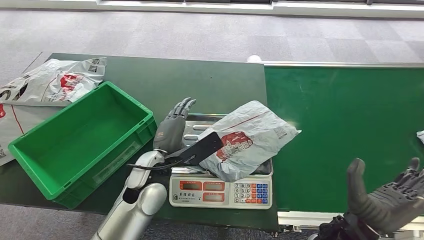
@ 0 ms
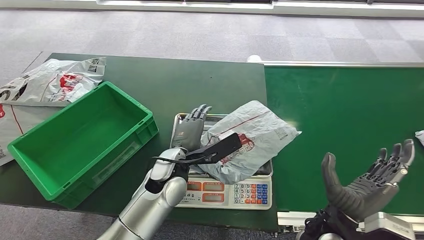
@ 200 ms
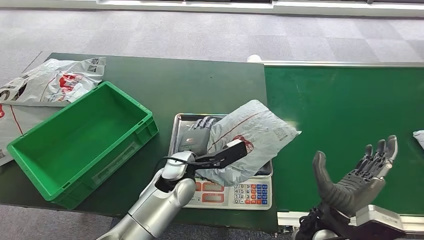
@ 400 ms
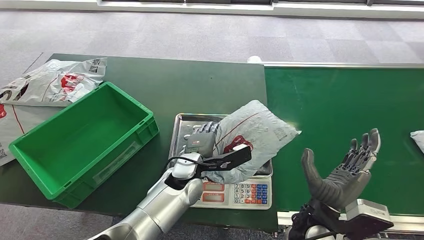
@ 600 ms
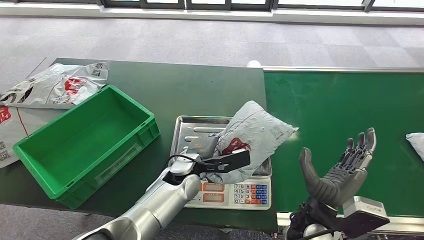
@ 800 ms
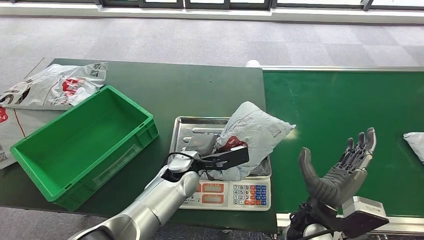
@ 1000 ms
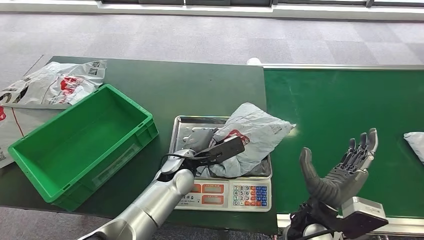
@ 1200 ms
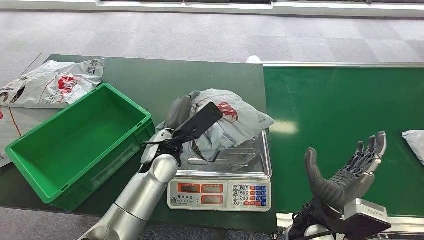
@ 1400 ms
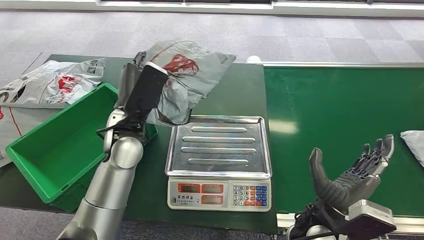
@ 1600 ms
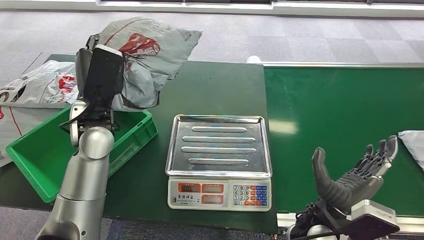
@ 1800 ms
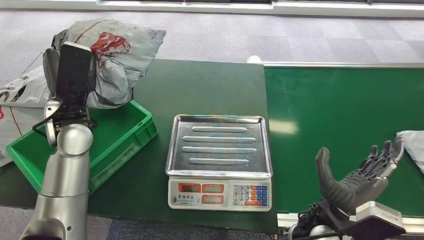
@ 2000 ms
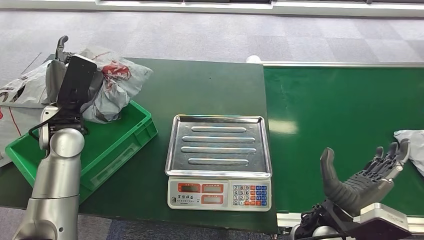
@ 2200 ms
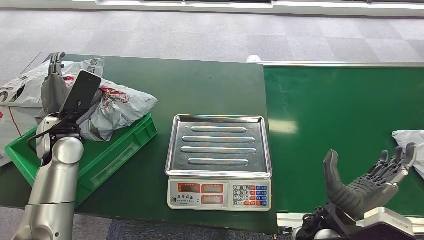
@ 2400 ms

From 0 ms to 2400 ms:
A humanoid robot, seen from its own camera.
Step, from 0 ms to 1800 ms: Pick up the package from the inbound machine.
Step, from 2000 ms to 2400 ms: Place the package into the parcel locker.

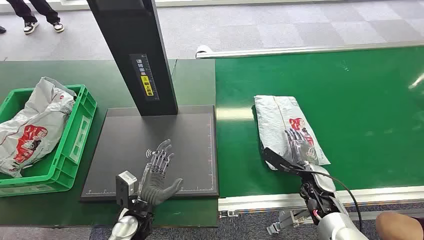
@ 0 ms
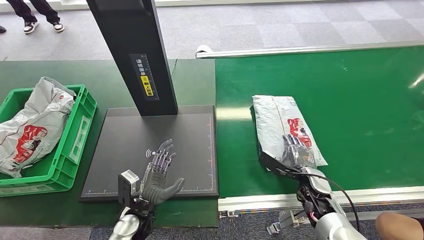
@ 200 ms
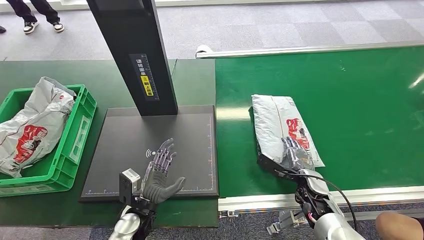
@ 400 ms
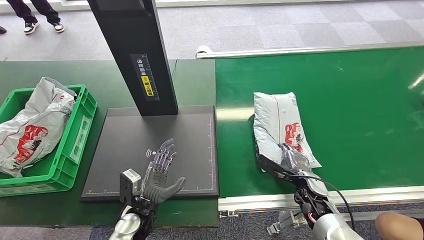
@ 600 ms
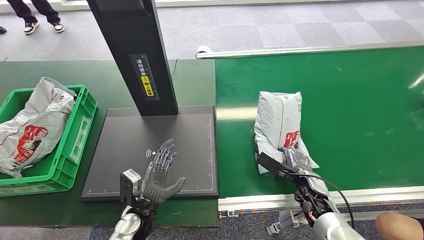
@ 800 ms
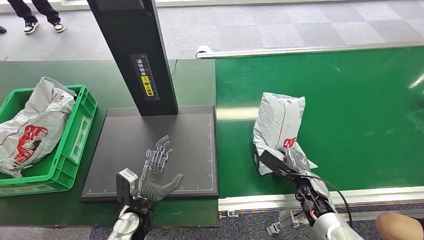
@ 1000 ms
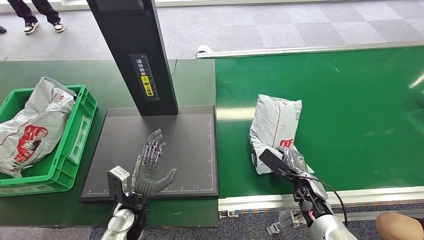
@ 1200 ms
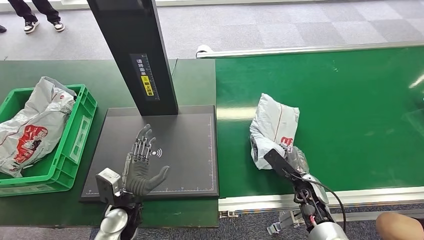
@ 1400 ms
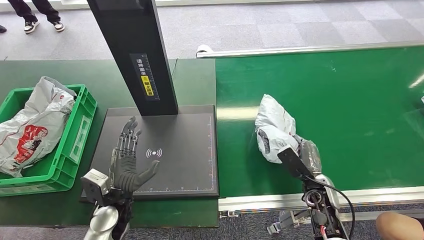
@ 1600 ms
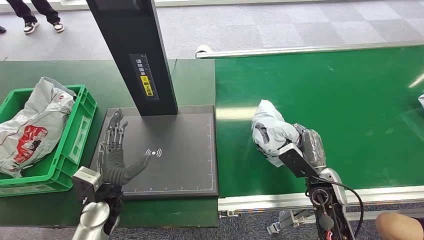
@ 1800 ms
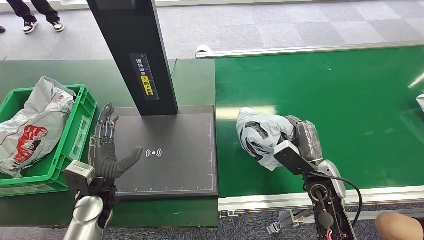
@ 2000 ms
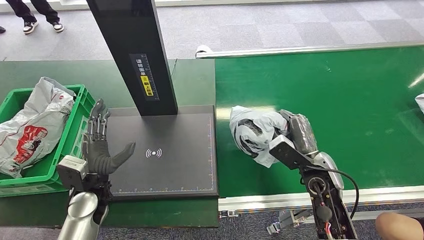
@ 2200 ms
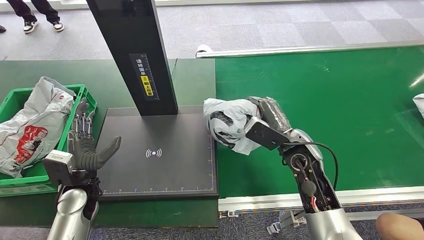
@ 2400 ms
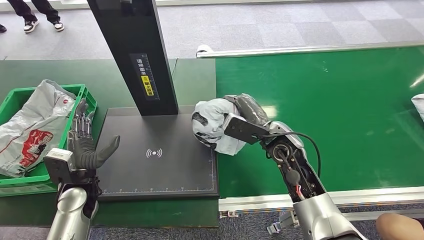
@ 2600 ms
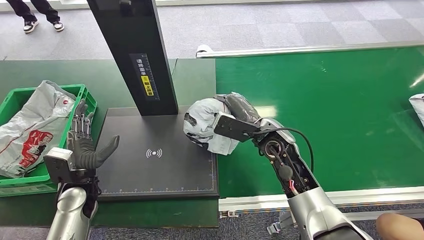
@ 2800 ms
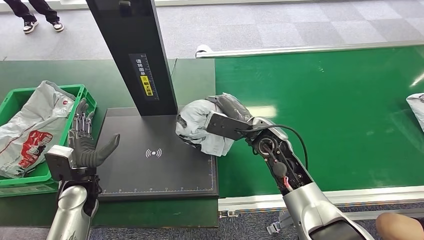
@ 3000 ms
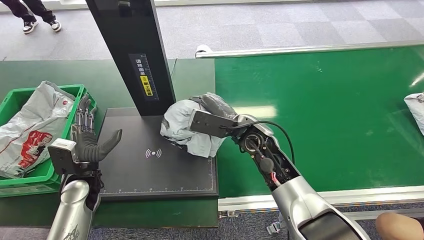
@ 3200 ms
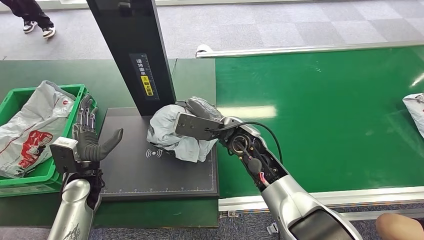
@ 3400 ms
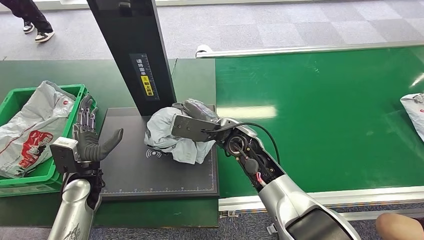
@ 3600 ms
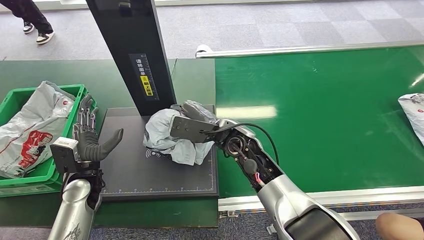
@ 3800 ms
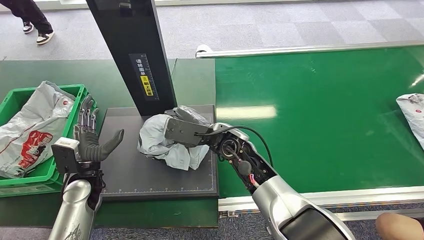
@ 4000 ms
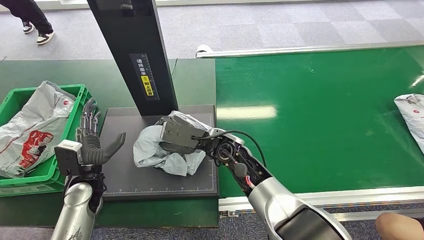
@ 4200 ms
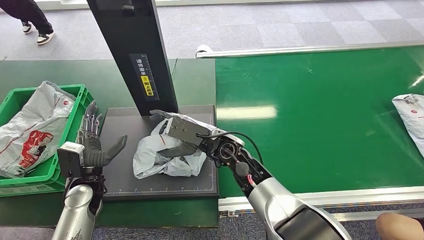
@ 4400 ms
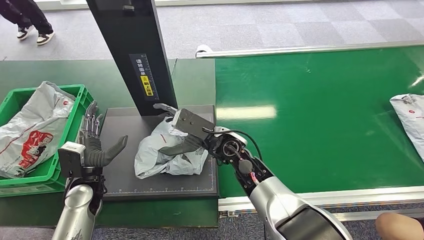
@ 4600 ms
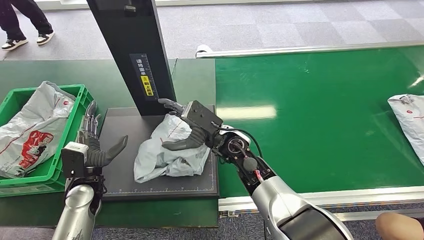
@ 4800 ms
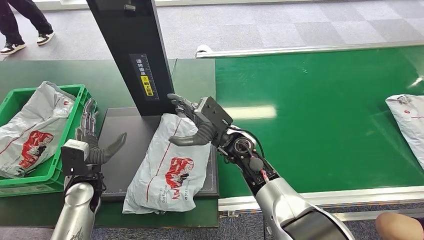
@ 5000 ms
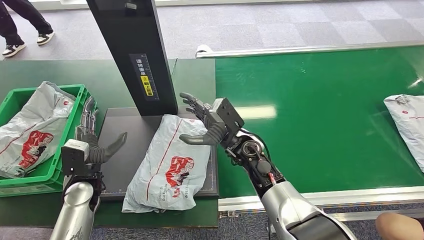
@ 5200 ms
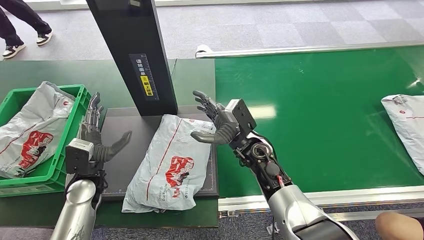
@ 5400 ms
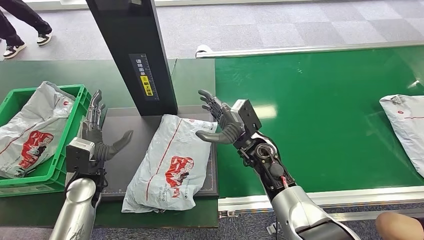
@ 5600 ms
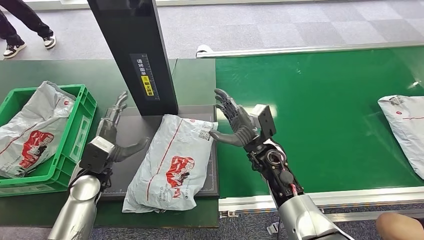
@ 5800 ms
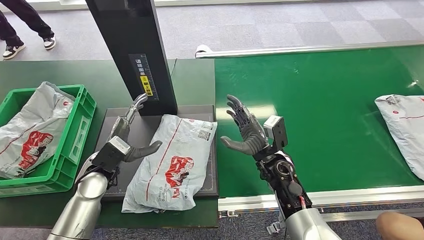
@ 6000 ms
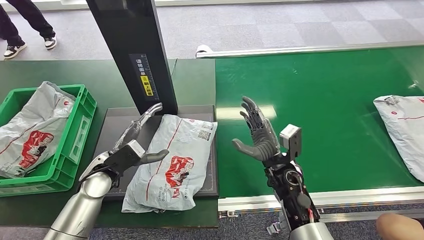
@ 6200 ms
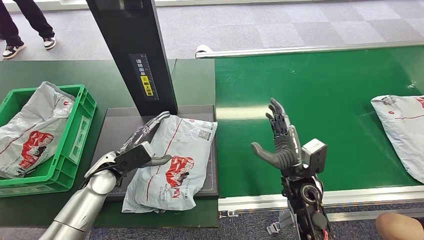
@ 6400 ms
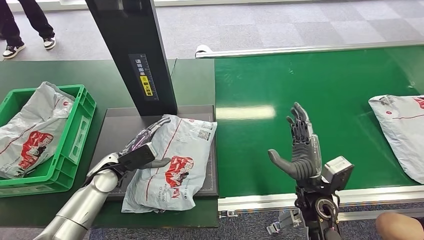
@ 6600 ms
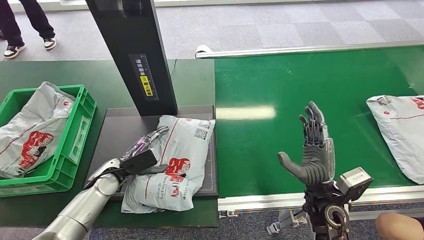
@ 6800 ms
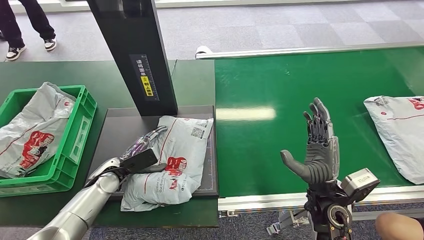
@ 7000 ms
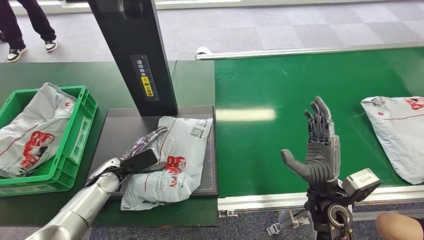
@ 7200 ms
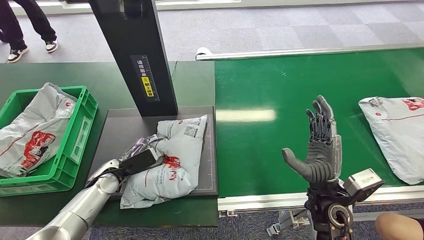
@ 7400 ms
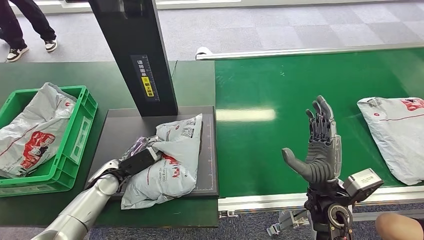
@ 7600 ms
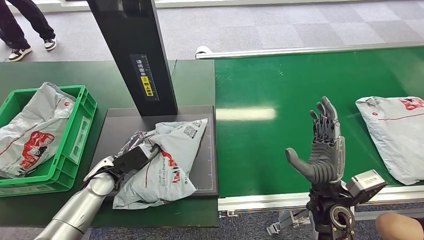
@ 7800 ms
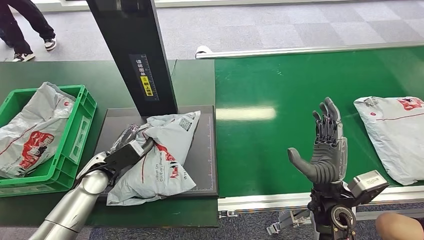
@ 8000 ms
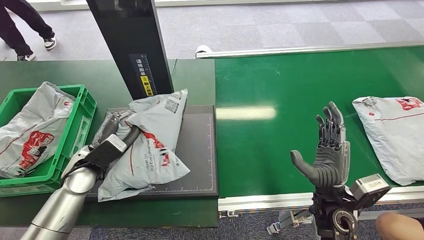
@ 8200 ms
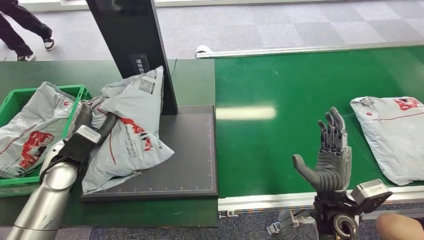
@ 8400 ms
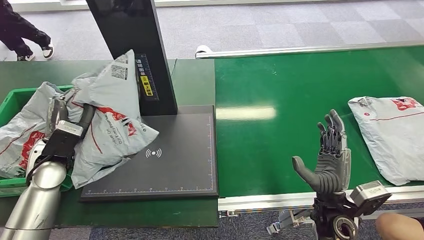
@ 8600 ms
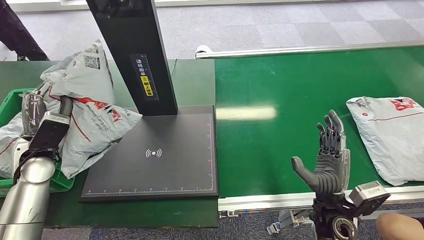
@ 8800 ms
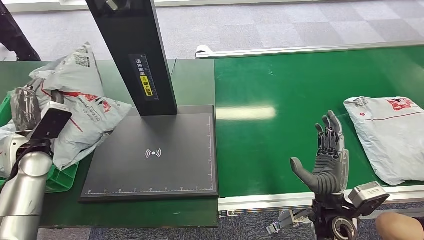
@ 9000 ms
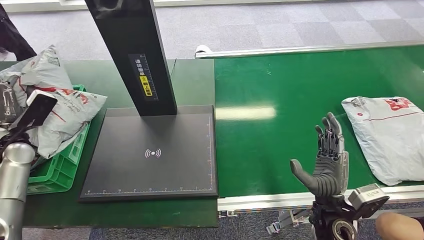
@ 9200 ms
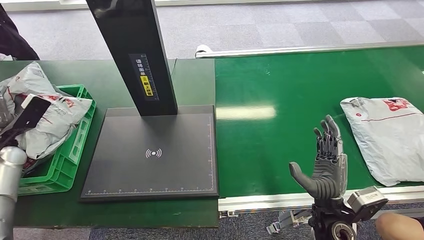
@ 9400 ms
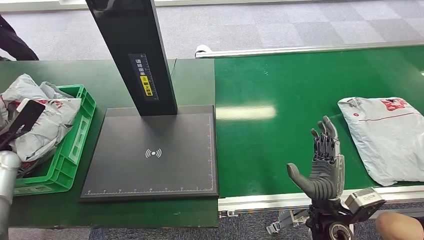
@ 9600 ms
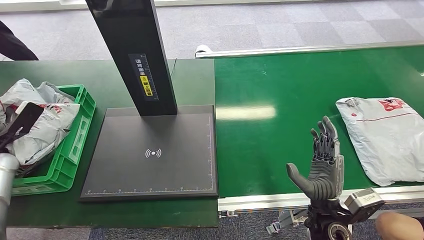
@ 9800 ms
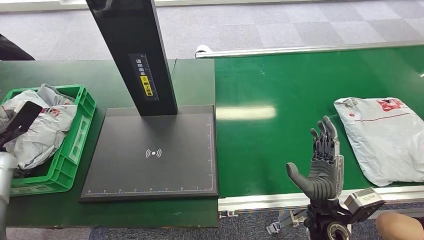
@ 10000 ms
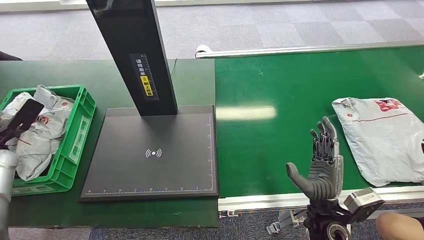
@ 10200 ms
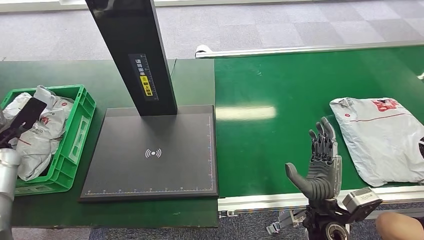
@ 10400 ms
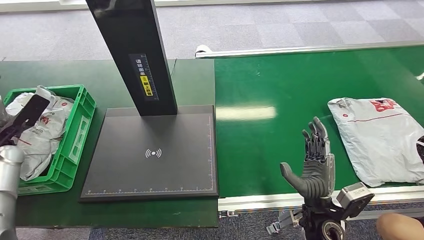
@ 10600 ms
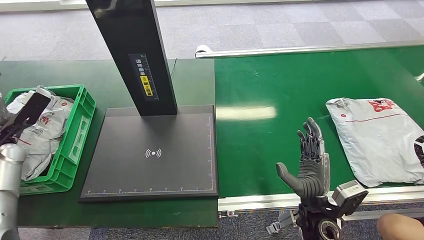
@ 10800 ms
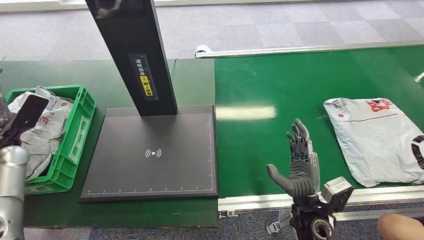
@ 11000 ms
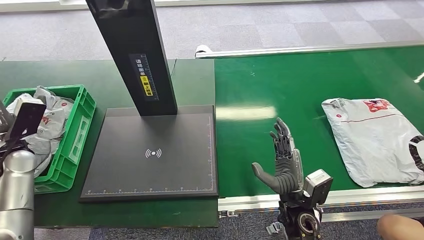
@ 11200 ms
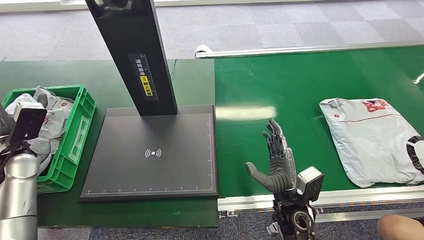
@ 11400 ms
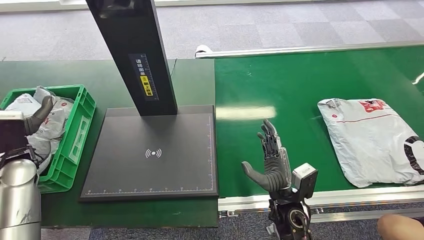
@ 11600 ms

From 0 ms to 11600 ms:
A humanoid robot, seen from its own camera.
Step, from 0 ms to 2800 ms: Pick up the package from the conveyor belt.
Step, from 3000 ms to 5600 ms: Place the package onto the inbound machine.
Step, from 6000 ms to 9000 ms: Pick up the package from the inbound machine.
Step, from 9200 ms to 11600 ms: Place the package into the parcel locker.
From 10200 ms to 11600 ms: The right hand goes approximately 5 cm to the left; the left hand shifts roughly 10 cm to the right.
